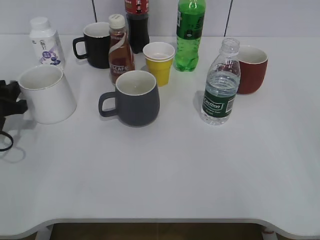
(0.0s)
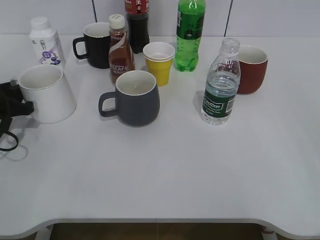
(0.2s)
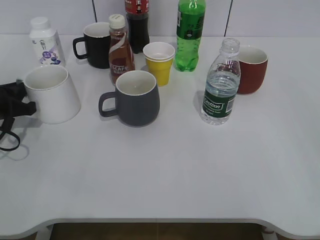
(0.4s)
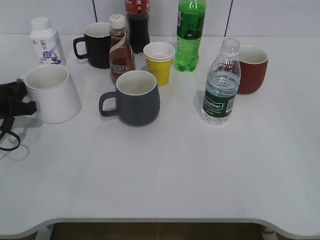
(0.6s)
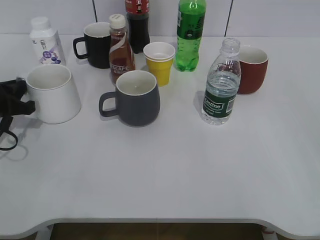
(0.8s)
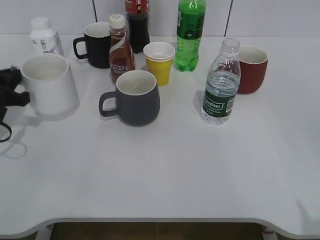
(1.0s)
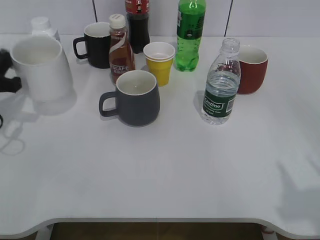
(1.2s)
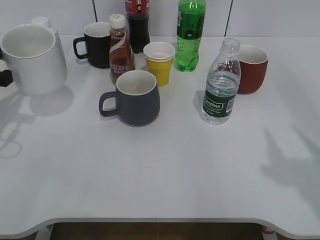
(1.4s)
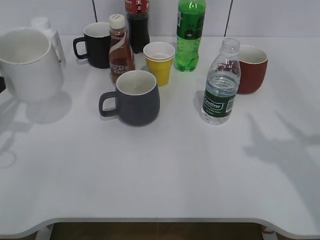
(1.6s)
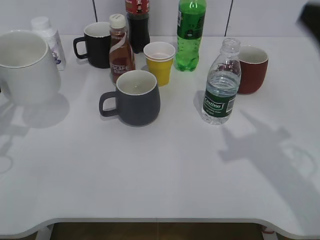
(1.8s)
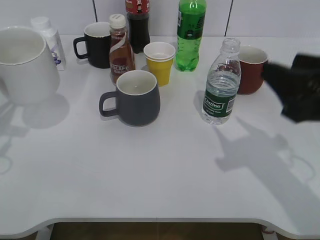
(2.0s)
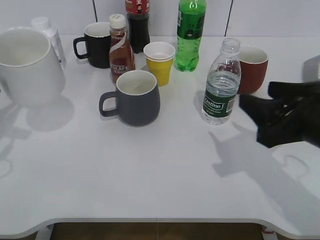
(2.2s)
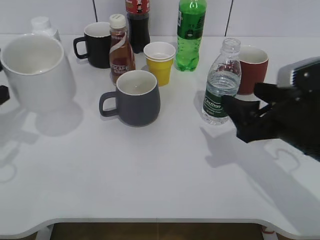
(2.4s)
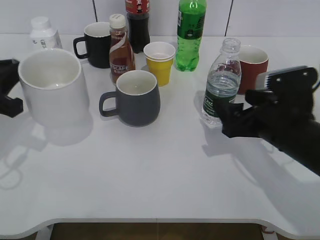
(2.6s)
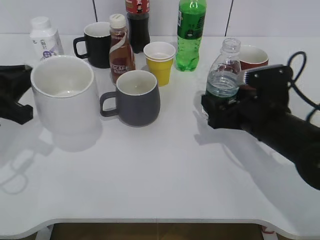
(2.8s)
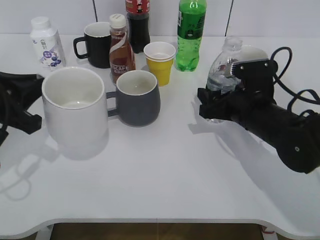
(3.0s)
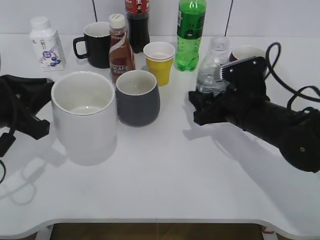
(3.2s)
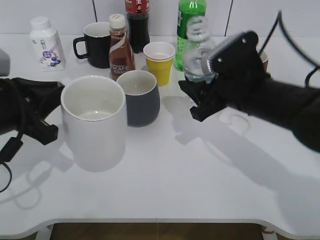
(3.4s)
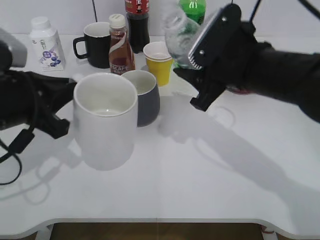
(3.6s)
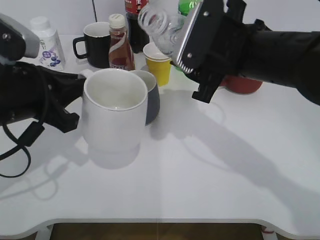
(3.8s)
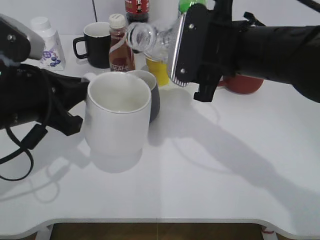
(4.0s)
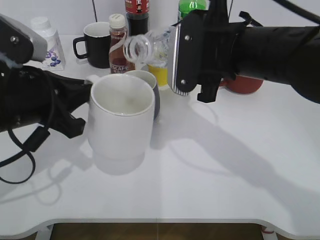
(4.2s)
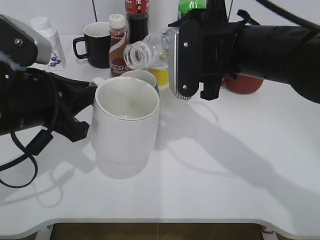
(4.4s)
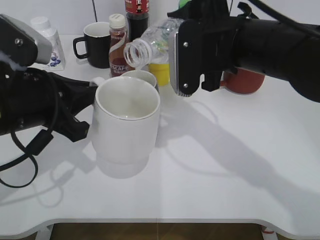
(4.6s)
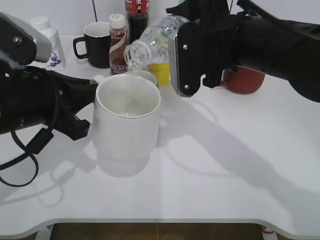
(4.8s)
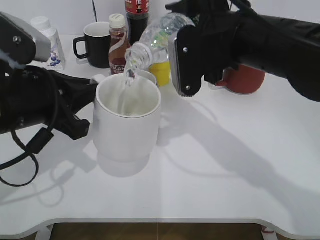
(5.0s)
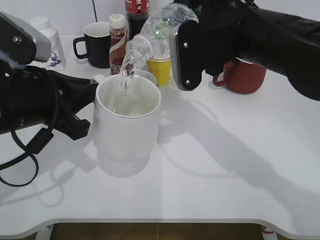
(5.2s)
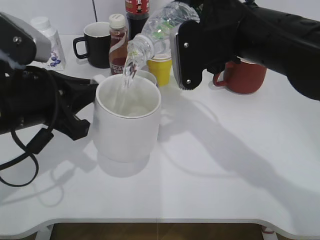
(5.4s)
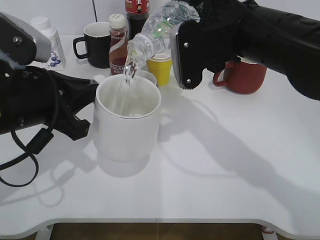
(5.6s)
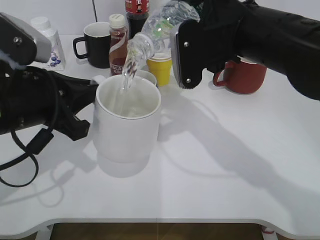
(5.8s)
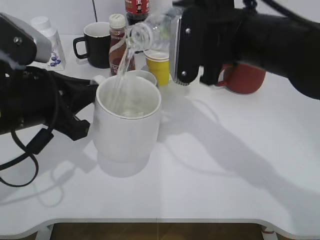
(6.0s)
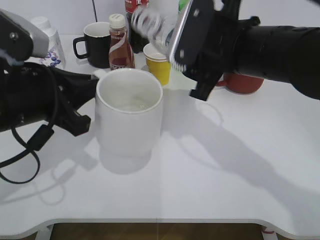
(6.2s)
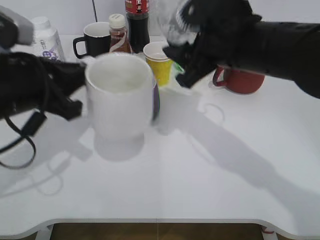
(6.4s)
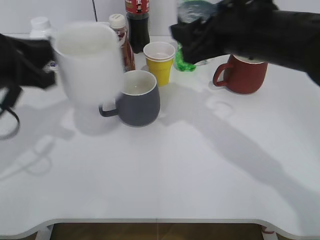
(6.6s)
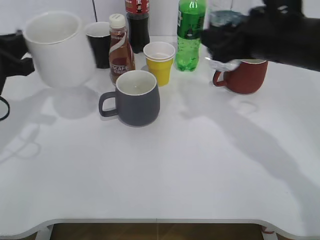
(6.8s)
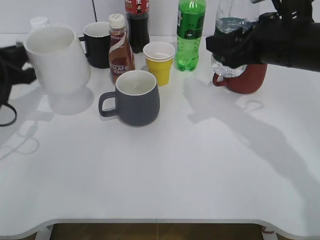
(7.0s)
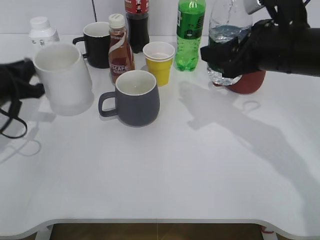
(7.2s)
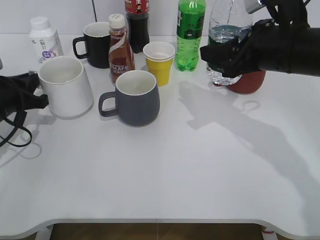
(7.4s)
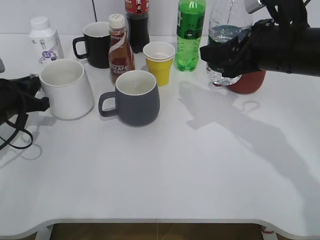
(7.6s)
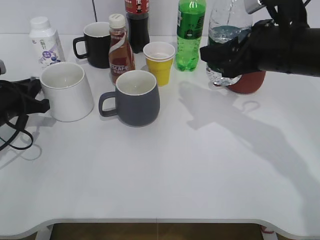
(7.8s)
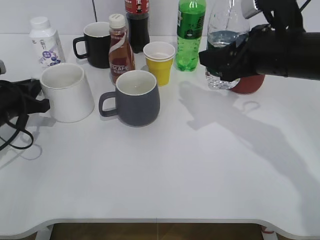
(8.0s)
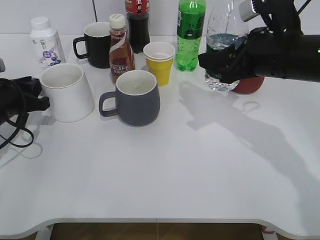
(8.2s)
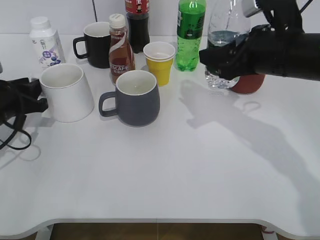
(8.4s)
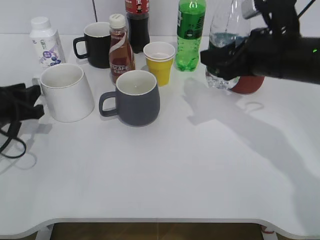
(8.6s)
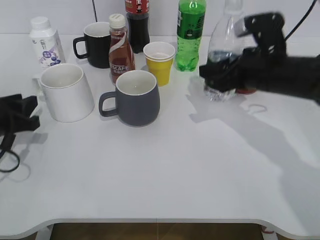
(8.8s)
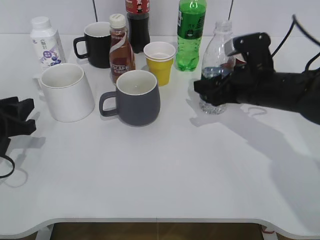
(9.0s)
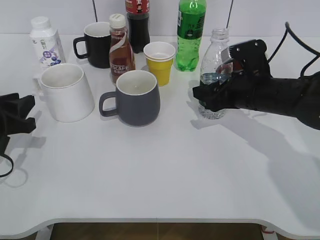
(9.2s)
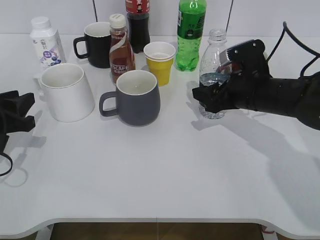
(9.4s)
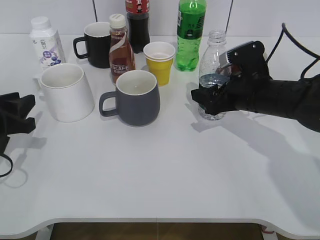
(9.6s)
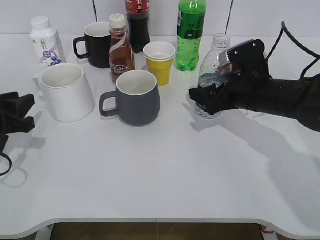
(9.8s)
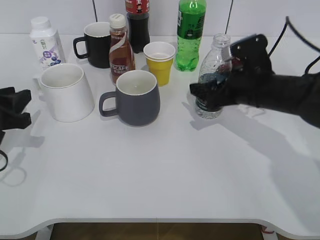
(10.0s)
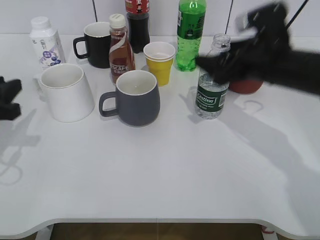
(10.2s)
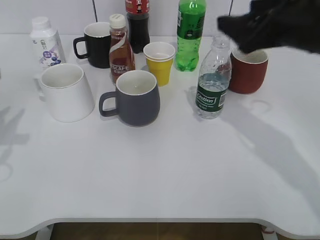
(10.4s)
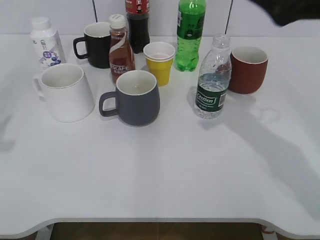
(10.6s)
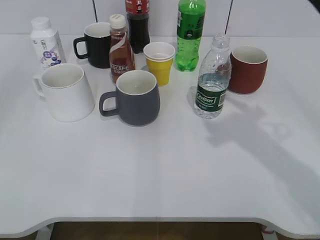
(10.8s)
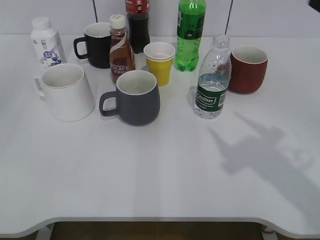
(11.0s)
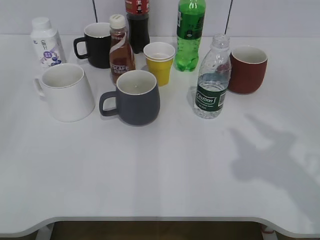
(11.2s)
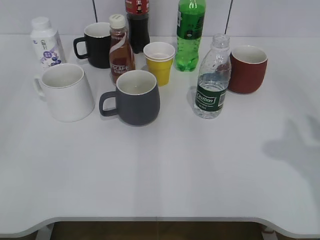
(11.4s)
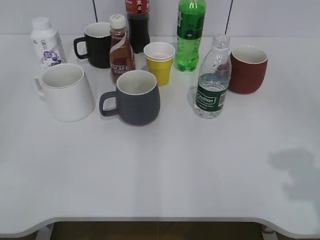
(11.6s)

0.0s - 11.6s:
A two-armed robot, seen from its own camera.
Step, 0.8s - 1.6s: Lift the white cup with left gripper.
Step, 1.8s - 3.0s: Grasp the bottle with water with right gripper.
Step, 3.2s - 6.0s: Pour the water from bottle to cup with right gripper.
Step, 6.4s - 8.2s: Place the white cup on the table with left gripper.
Step, 8.4s - 9.8s: Place the water bottle on the table with right gripper.
0.0s - 1.4s: The left gripper moves upward, approximately 10 cm, and closes up.
1.4s - 2.8s: The right gripper moves downward, forward and to the left, about 30 cm, and opens. The left gripper moves backward and to the right, approximately 5 cm.
2.8s - 4.4s: The left gripper moves to the right, about 10 cm. The right gripper travels upward and to the left by approximately 15 cm, and closes up.
5.8s - 7.2s: The left gripper goes some 15 cm to the left, forward and downward; the right gripper goes approximately 5 cm to the right.
7.2s - 8.8s: The left gripper ends up about 5 cm from where it was, and opens. Meanwhile the right gripper travels downward by roughly 5 cm.
8.8s - 10.2s: The right gripper opens its fingers. The left gripper moves upward, roughly 5 cm.
10.2s - 11.6s: The left gripper moves backward and upward, about 25 cm, and opens, while the right gripper is displaced backward and to the right by some 25 cm, and closes its fingers.

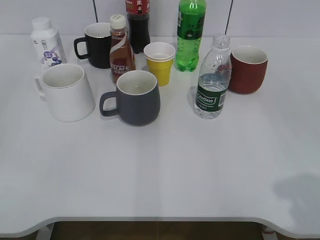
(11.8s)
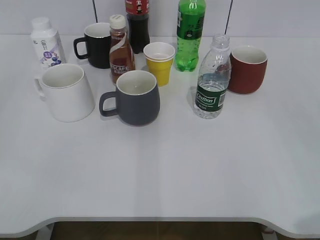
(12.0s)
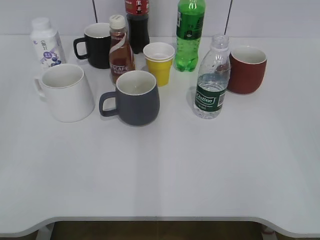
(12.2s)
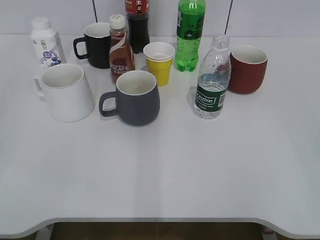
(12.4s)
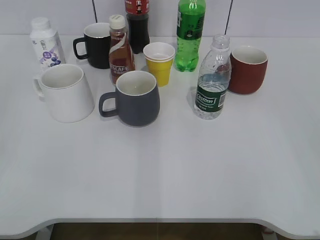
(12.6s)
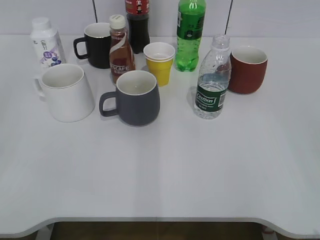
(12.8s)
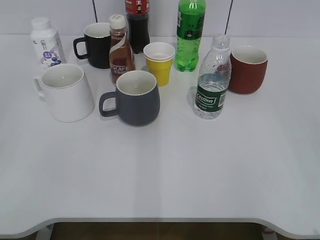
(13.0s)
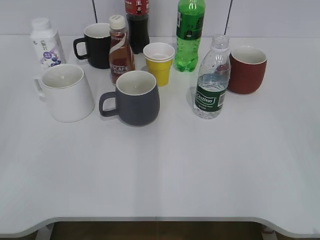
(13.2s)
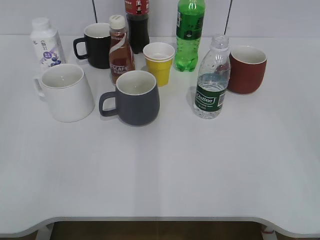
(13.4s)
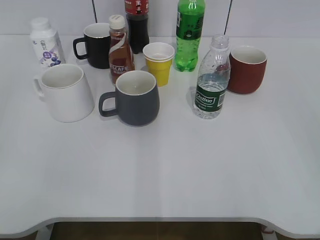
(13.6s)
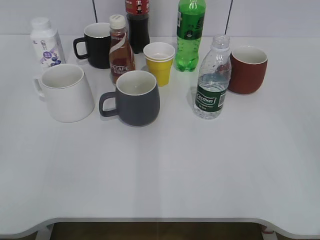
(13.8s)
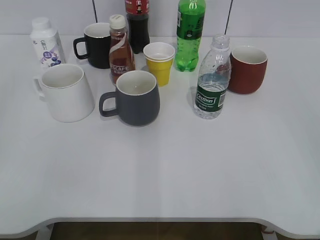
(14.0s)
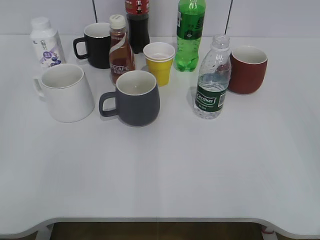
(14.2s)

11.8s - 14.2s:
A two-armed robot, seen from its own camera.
11.8s - 13.0s: The right gripper is displaced backward by roughly 5 cm.

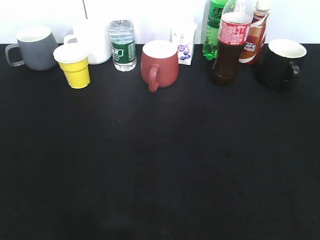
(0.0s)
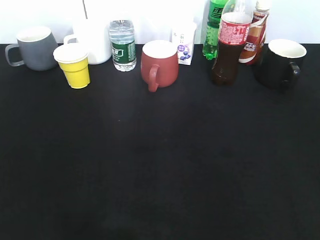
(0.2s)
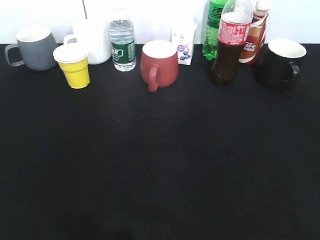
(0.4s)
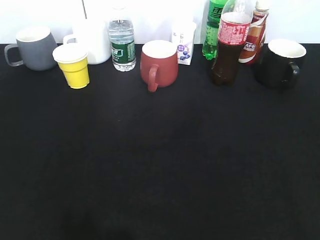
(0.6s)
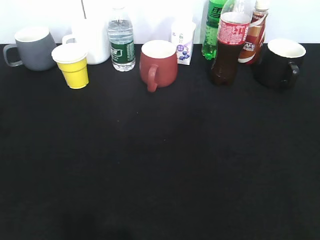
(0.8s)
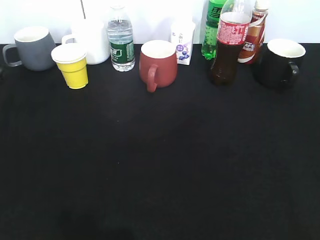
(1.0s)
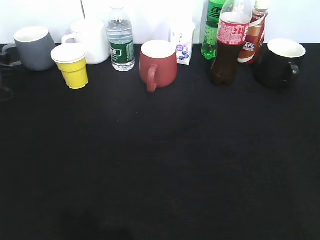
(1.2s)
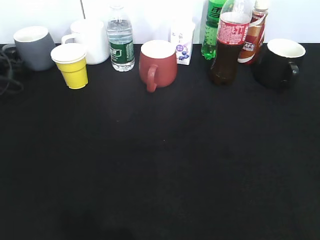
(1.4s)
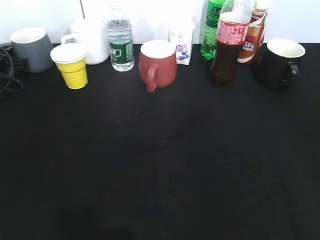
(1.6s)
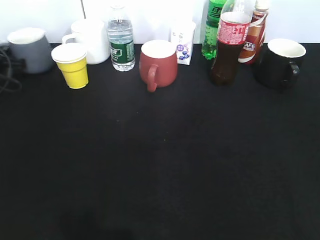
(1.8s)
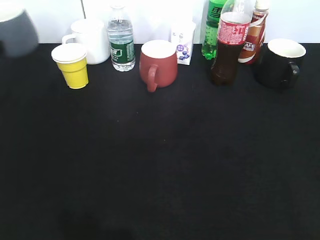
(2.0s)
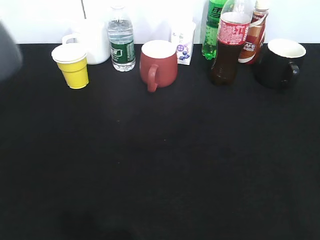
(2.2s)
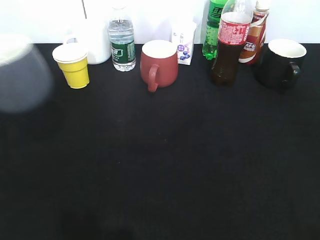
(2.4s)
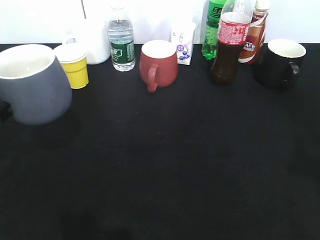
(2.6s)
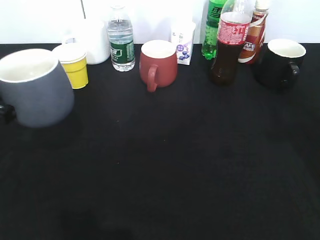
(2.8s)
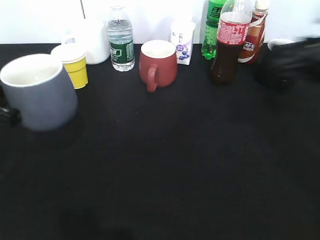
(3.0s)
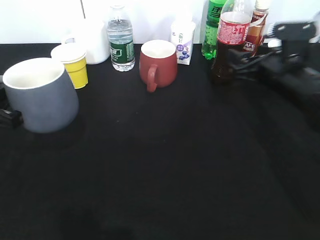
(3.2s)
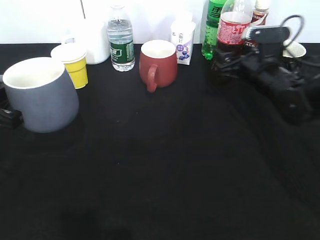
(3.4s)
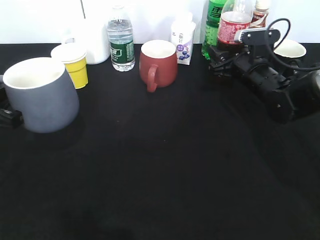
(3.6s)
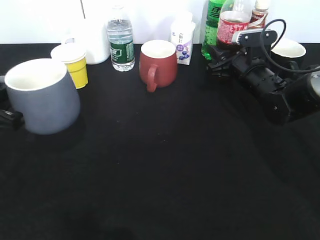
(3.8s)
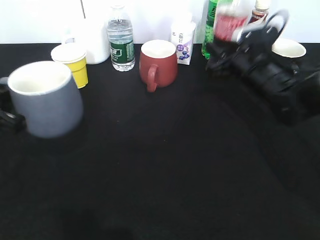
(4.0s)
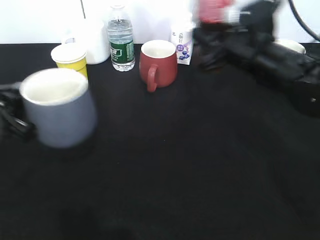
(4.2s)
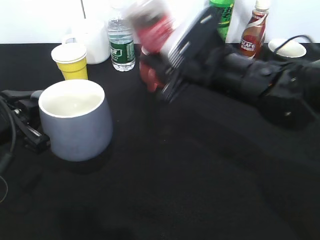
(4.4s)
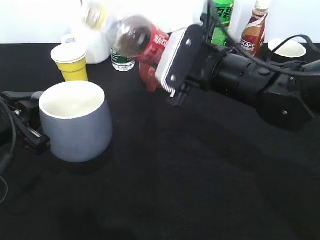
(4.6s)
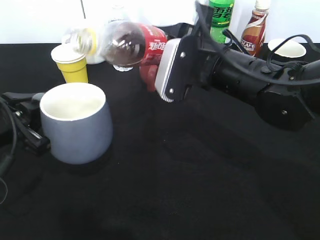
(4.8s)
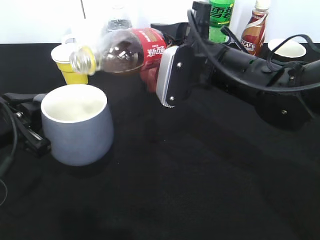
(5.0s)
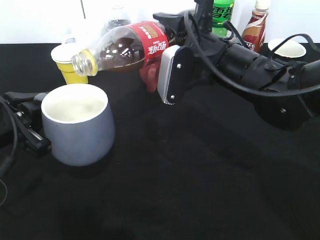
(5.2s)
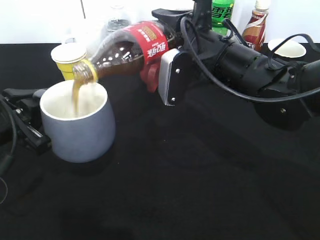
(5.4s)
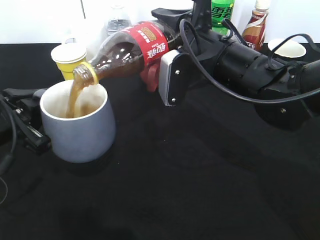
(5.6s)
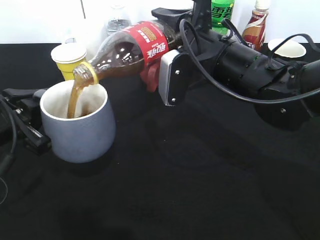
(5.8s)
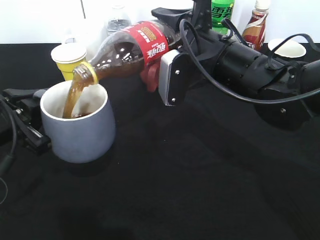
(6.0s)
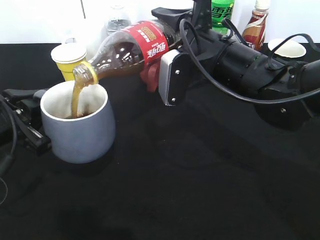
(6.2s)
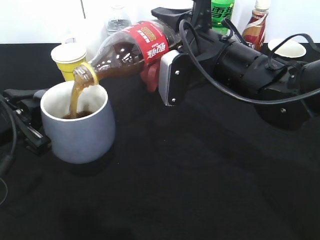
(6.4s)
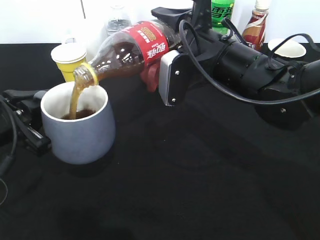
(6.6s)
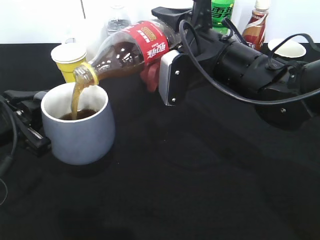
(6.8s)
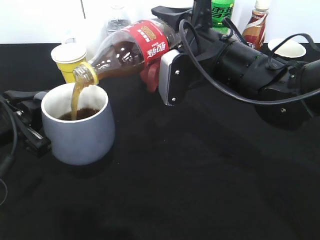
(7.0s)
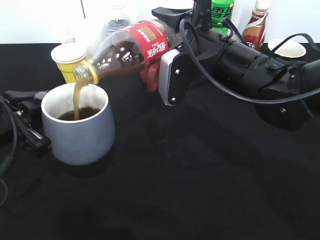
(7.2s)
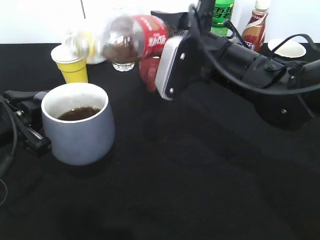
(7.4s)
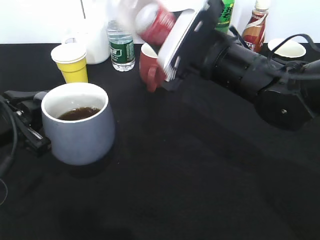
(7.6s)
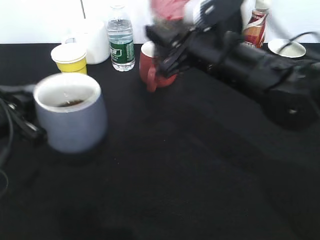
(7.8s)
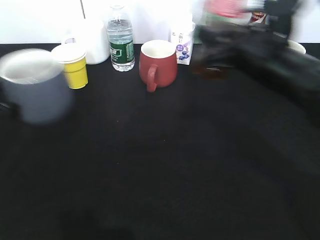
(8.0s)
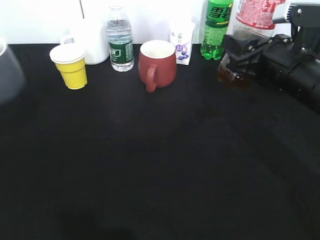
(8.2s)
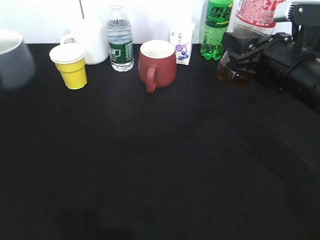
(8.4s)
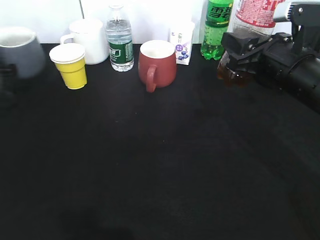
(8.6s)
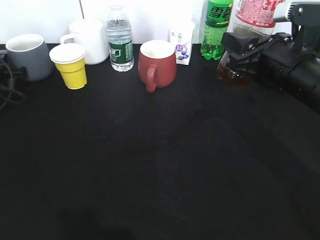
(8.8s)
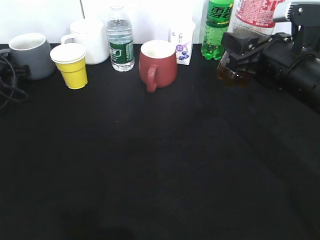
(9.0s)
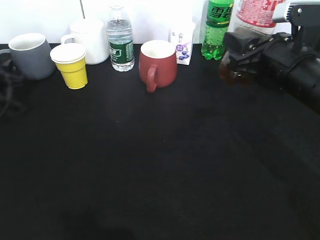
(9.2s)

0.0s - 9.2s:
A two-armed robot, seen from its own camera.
Step, 0.0s - 1.6s: Grasp the grey cup with left gripper.
Step, 1.8s - 2.4s: Lift the grey cup with left gripper.
Step, 2.6s - 3.8s: Grasp the bottle with cola with right gripper.
Step, 4.0s - 6.6s: Pour the cola from bottle to cup with right gripper.
0.0s - 1.6s: The left gripper shifts approximately 50 cm forward, and closes.
1.6s - 3.0s: The left gripper shifts approximately 25 cm backward. The right gripper moves forward, some 30 cm.
3.0s - 4.6s: The right gripper heads to the left, covering approximately 15 cm, and closes up.
7.6s - 9.2s: The left gripper is displaced forward, to the left and downward by about 25 cm, and opens up; the right gripper moves to the right, roughly 10 cm.
